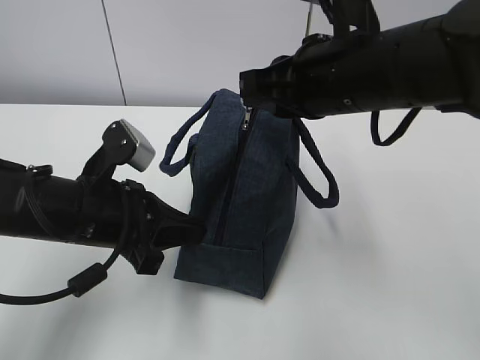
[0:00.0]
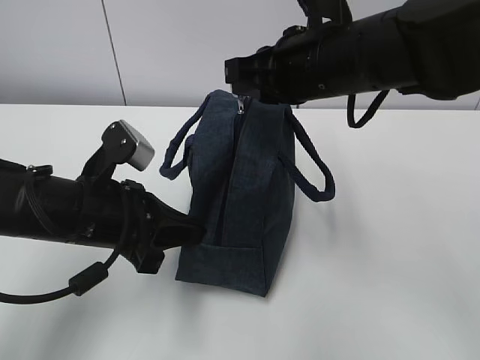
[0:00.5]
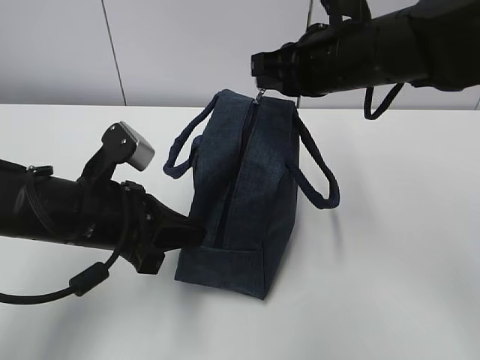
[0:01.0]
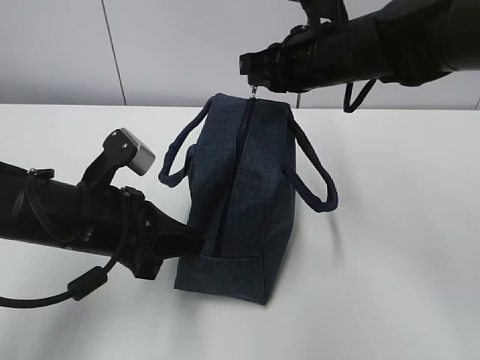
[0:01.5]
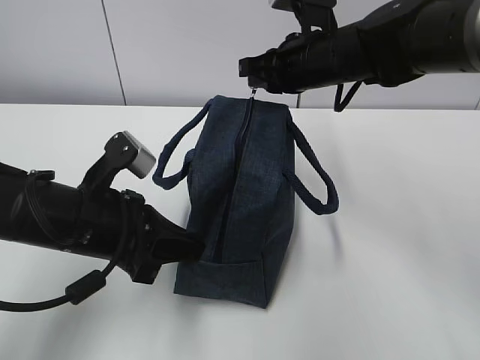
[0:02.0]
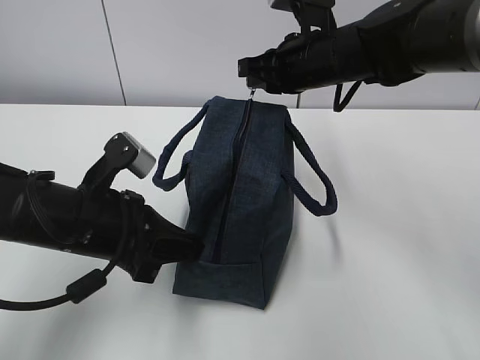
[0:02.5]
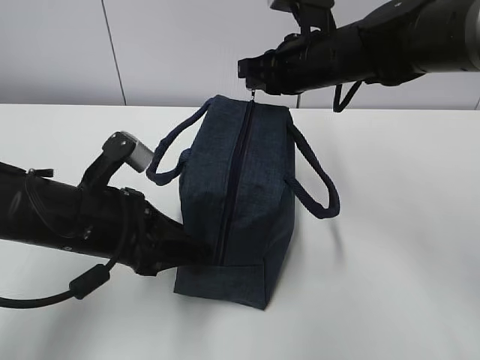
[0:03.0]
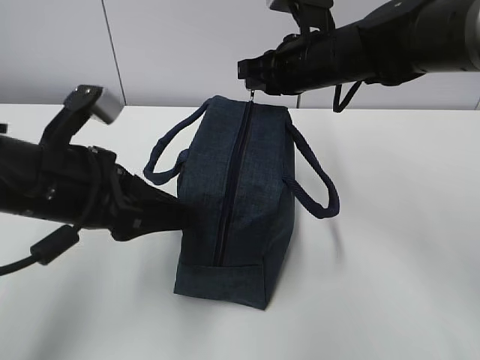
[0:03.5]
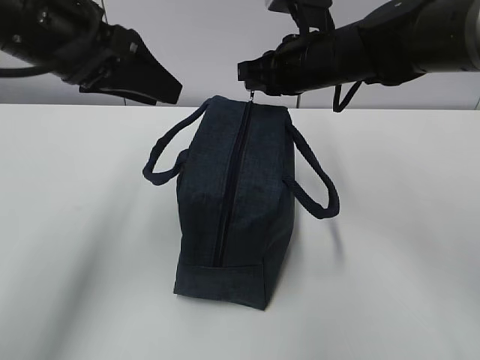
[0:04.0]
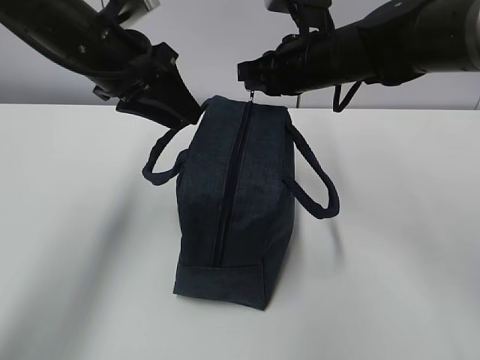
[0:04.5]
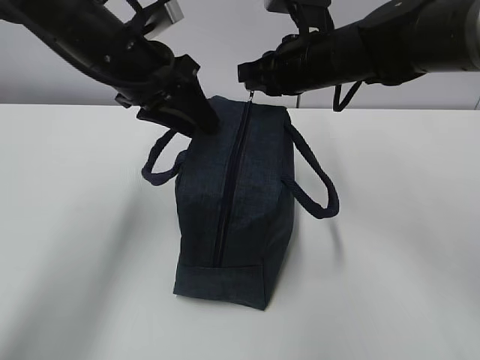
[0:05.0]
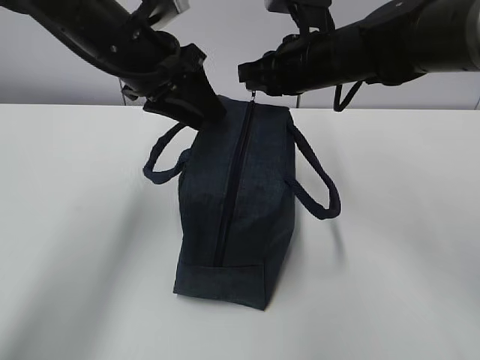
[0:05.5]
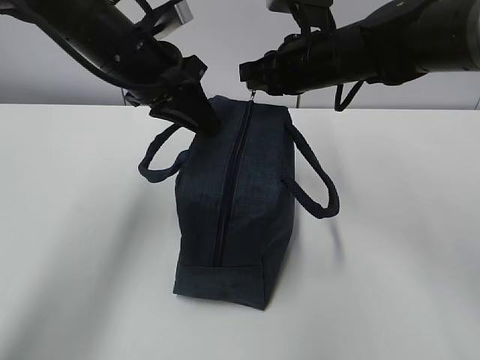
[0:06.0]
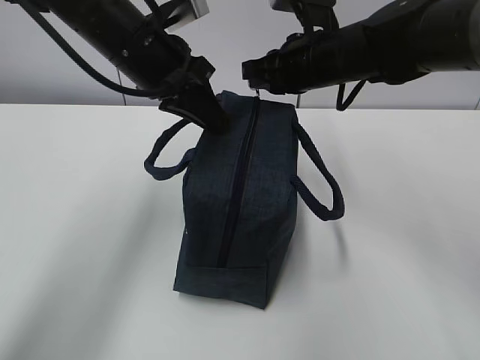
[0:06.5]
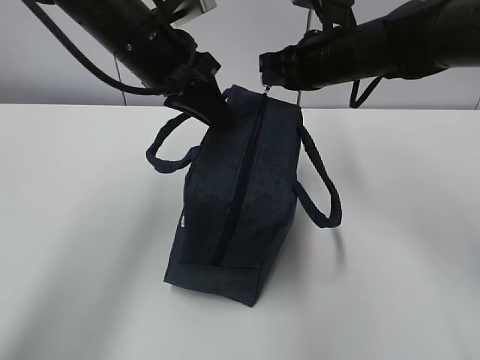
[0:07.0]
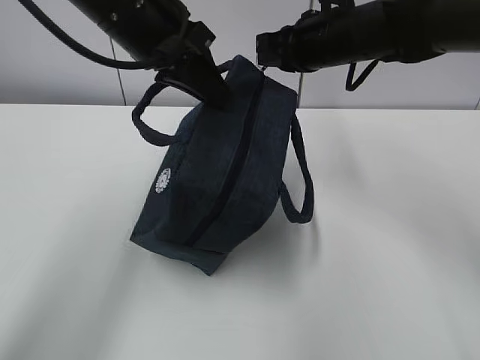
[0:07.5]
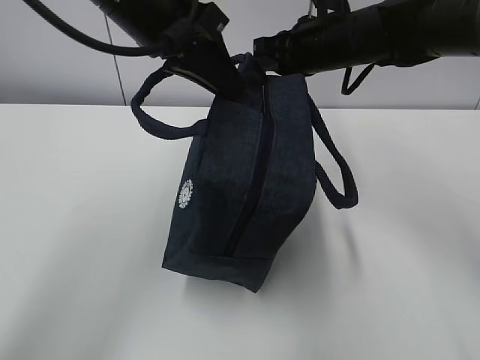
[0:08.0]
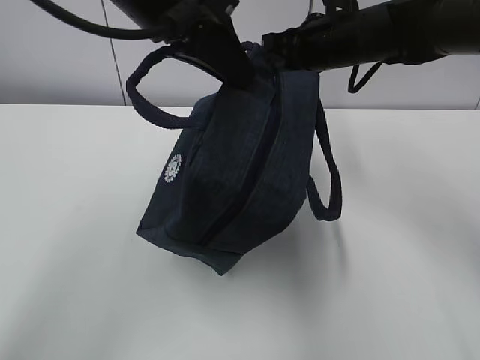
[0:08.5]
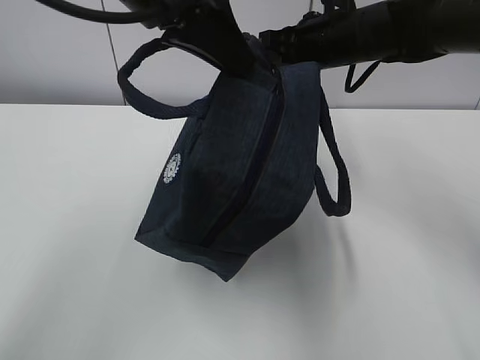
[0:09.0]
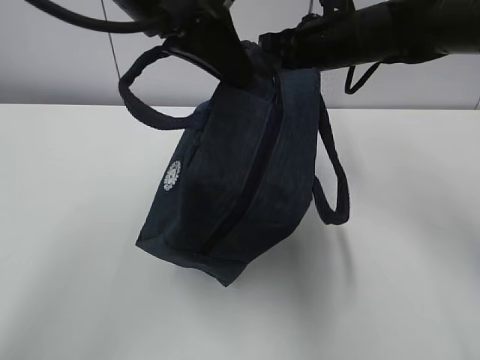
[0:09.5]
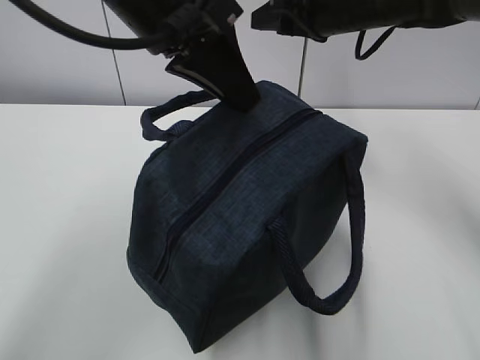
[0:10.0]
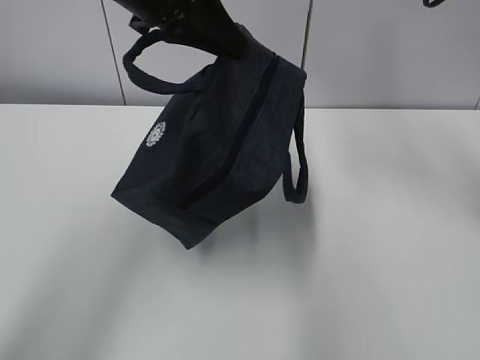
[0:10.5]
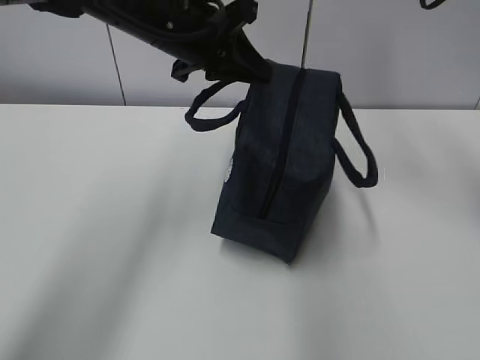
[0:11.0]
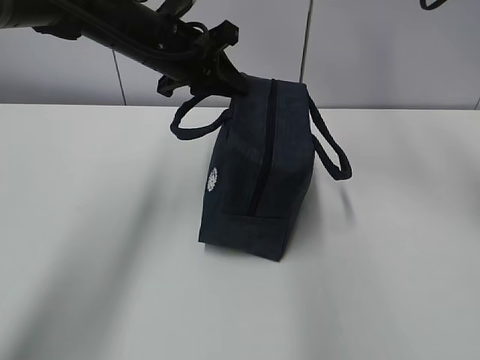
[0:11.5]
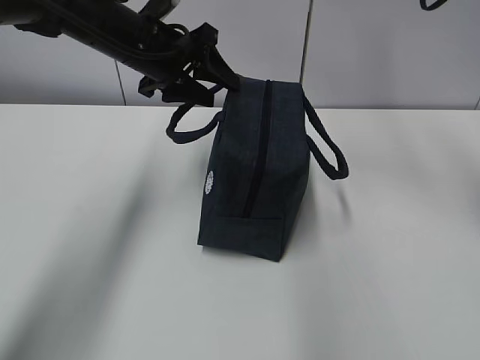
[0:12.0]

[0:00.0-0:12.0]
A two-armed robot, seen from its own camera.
0:00.0 to 0:02.0: The right gripper shifts roughly 15 cm forward.
0:02.0 to 0:04.0: The left gripper goes approximately 15 cm upward, and opens its fingers.
0:04.0 to 0:06.0: The left gripper goes roughly 10 cm forward and downward, and closes up.
0:06.0 to 0:08.0: The left gripper heads upward and backward, covering about 10 cm.
0:08.0 to 0:10.0: The right gripper ends up approximately 5 cm from where it was, and opens its fingers.
0:10.0 to 0:12.0: The left gripper shifts some 15 cm forward and downward, and opens. Meanwhile the right gripper travels upward by about 5 cm.

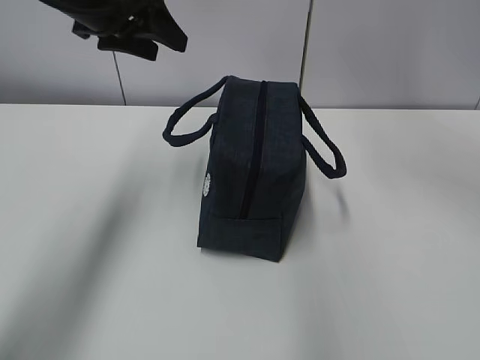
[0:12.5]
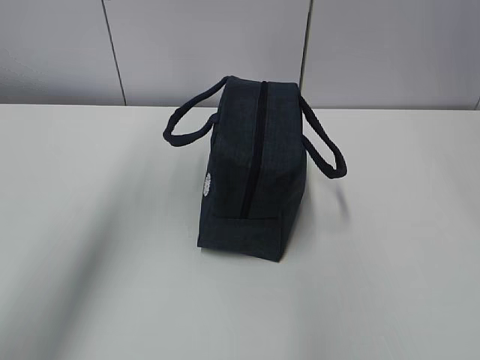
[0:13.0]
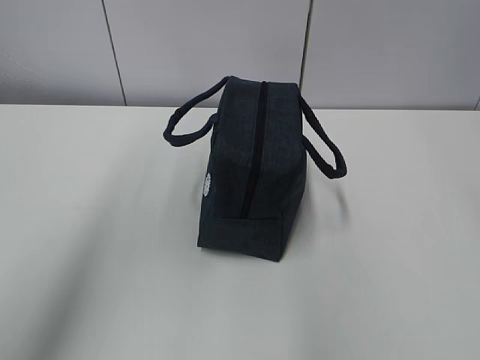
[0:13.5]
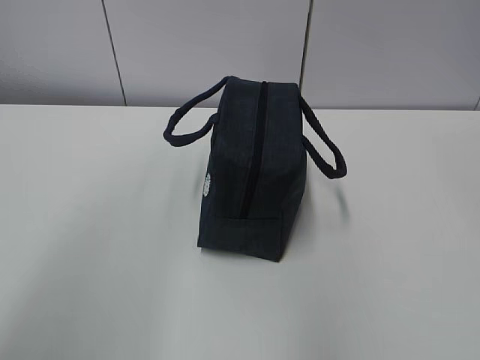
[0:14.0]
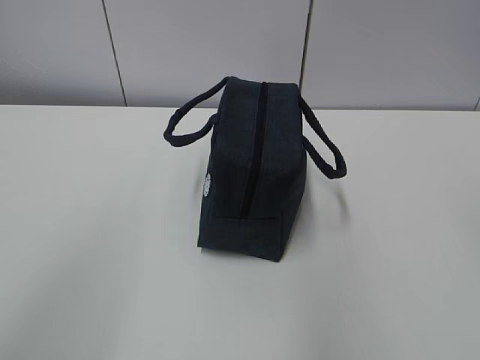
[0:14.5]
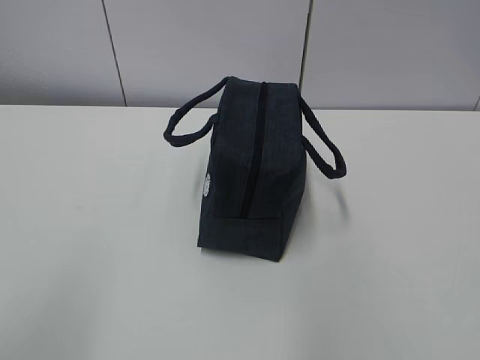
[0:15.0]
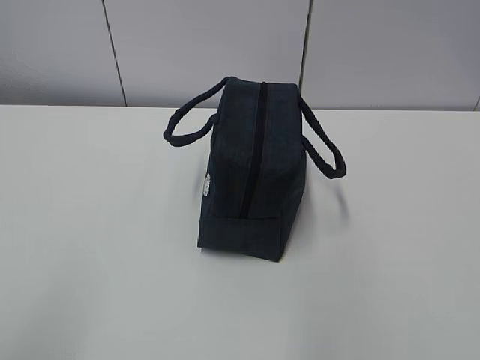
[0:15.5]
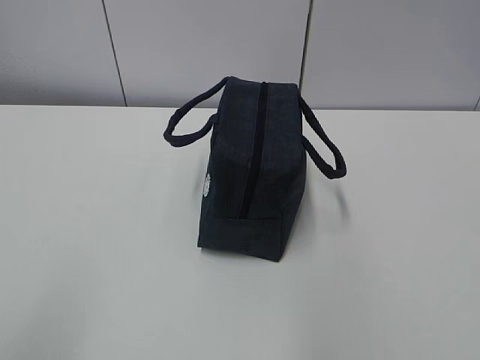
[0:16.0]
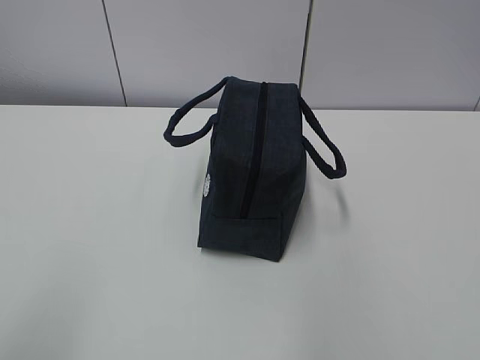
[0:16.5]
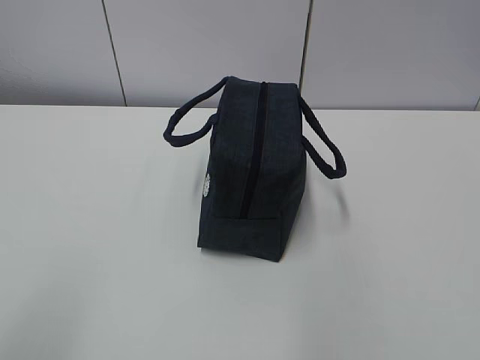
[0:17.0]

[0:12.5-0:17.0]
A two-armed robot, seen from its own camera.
0:12.5 to 0:14.5: Both grippers move backward, approximately 40 cm.

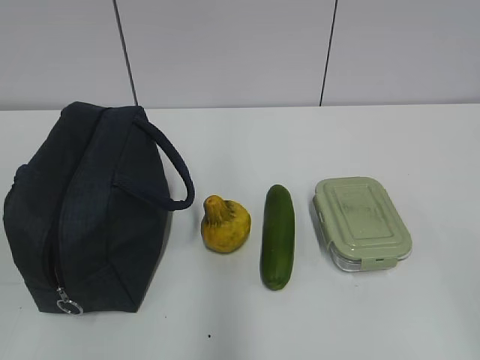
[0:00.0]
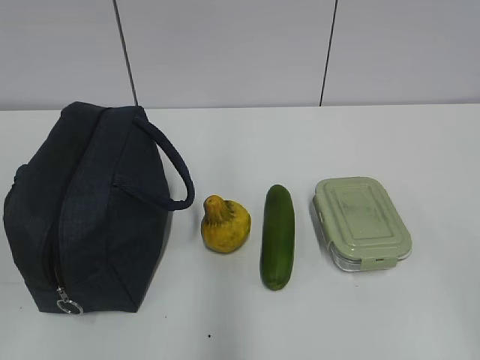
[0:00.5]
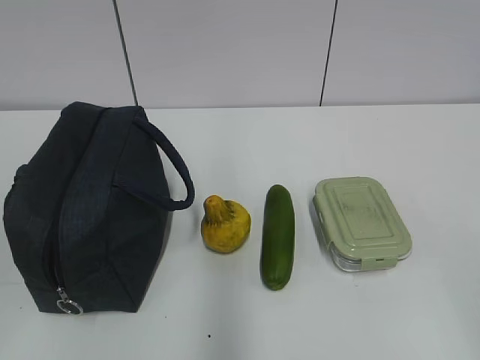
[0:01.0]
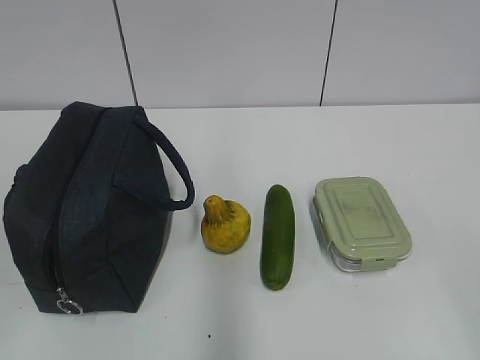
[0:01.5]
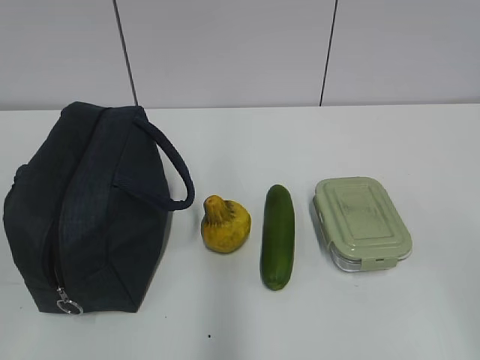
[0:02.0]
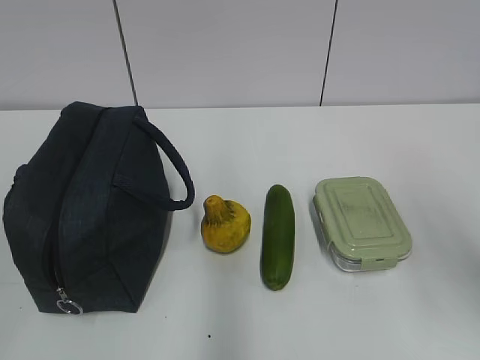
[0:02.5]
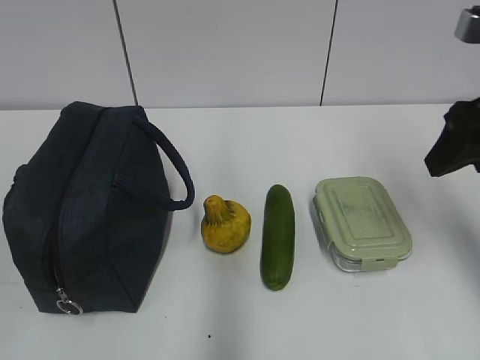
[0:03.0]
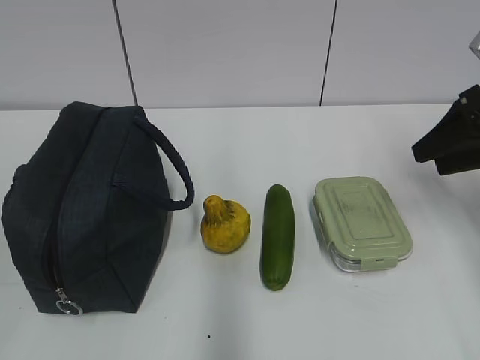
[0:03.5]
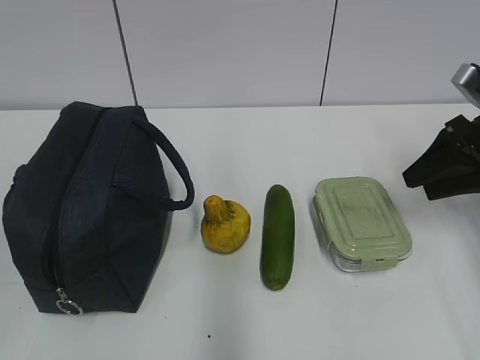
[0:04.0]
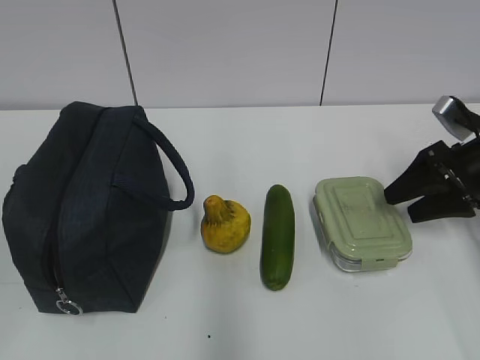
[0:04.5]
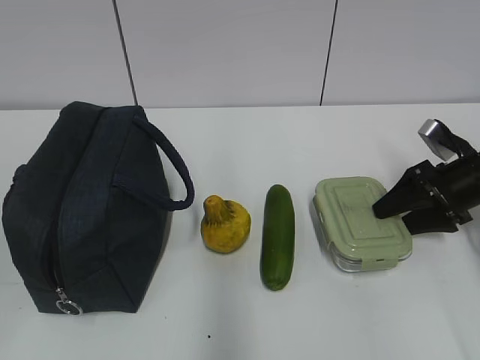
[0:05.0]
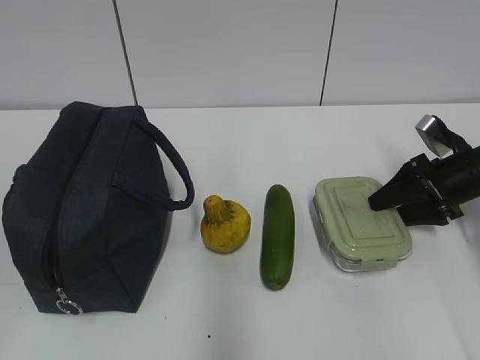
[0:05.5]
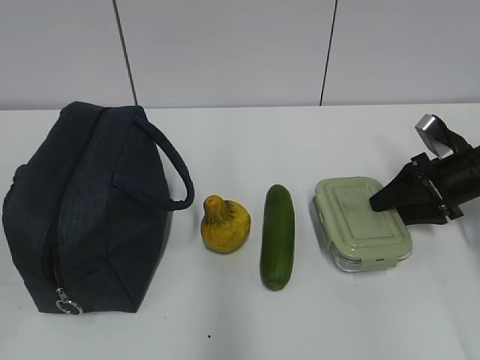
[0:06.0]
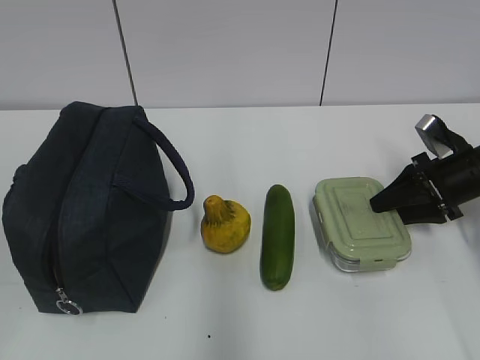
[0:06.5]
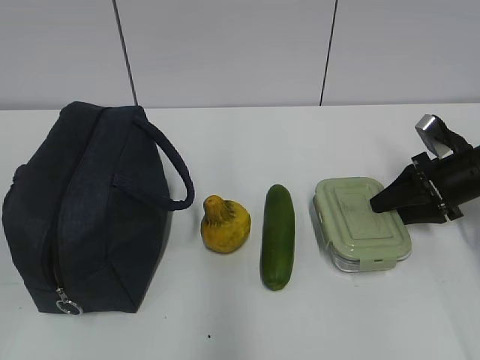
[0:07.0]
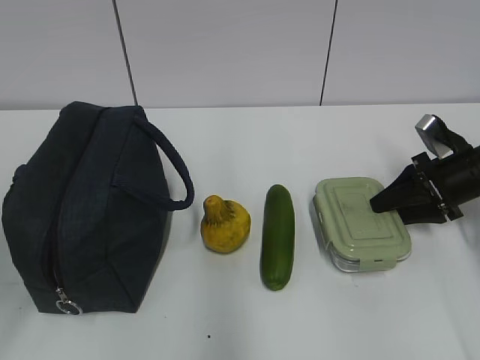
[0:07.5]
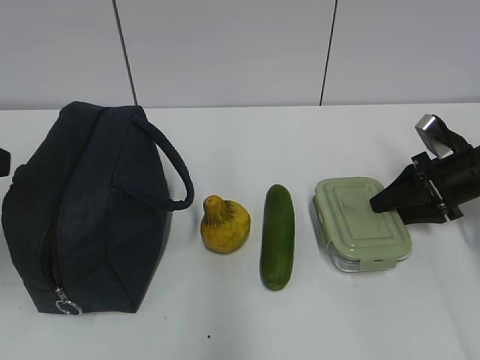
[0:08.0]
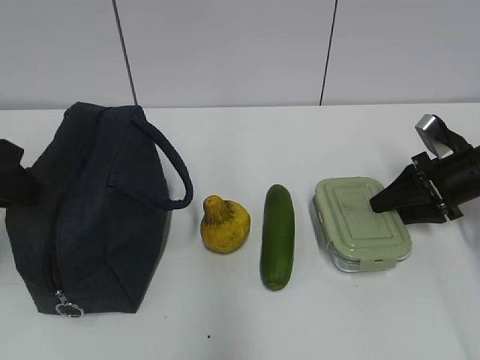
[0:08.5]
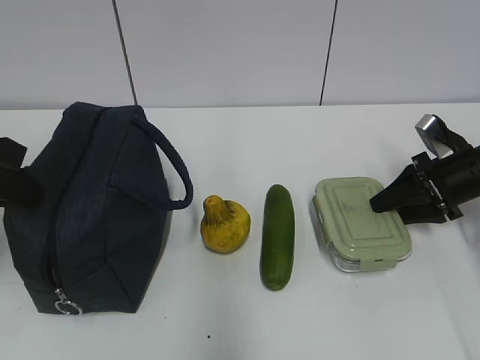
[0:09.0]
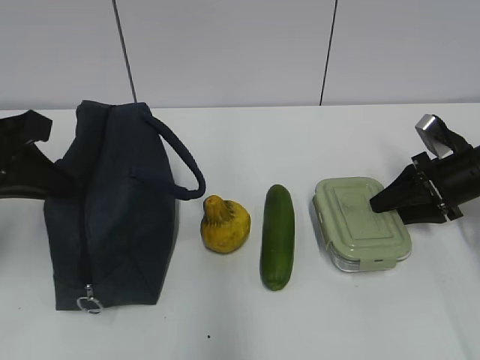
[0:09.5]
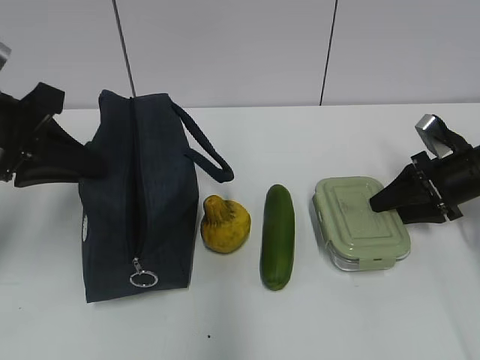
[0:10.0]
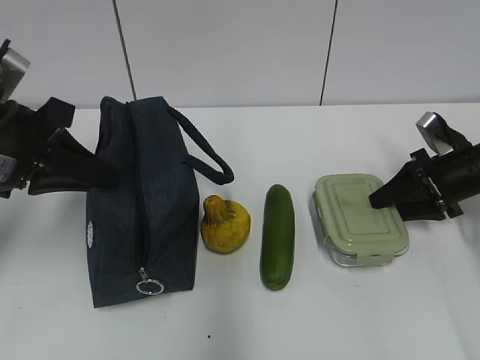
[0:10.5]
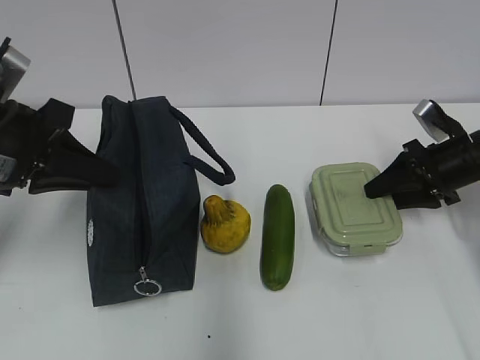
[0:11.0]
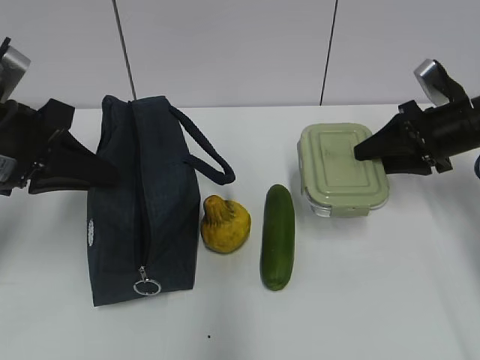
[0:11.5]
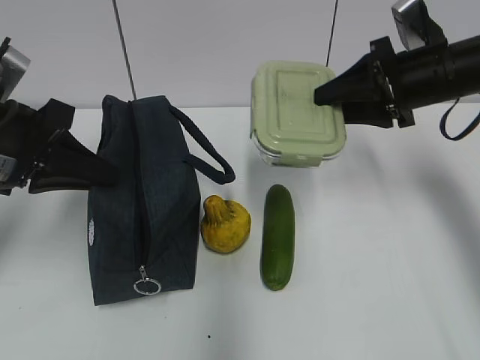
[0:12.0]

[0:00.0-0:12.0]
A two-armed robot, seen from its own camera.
0:02.0 to 0:04.0: The right gripper goes approximately 35 cm forward.
0:04.0 to 0:06.0: The right gripper goes roughly 10 cm downward.
0:06.0 to 0:08.0: The left gripper heads forward, covering roughly 20 cm.
0:08.0 to 0:10.0: The left gripper moves forward, roughly 5 cm, and closes.
0:10.0 to 0:12.0: The right gripper shifts roughly 15 cm upward and to the left.
